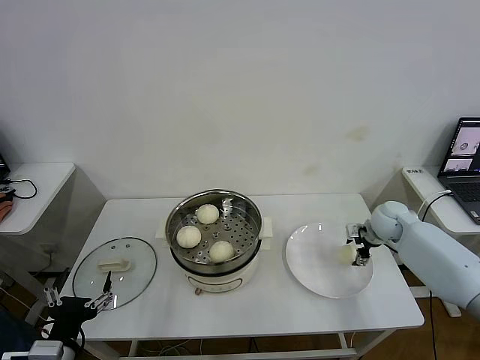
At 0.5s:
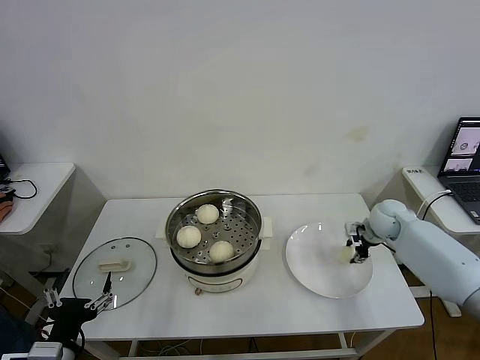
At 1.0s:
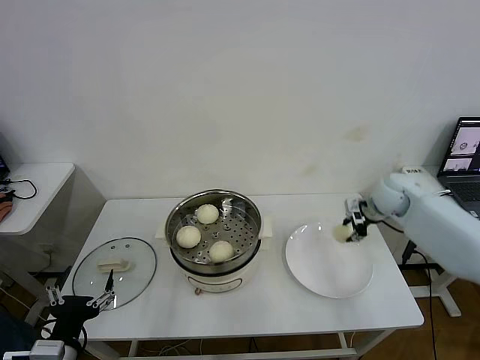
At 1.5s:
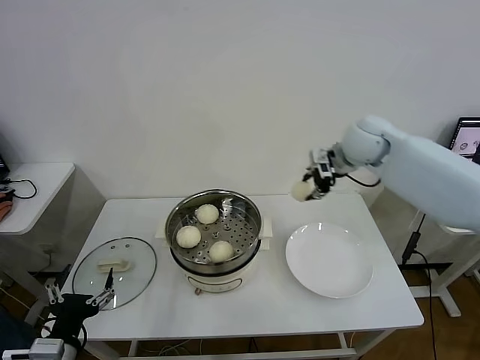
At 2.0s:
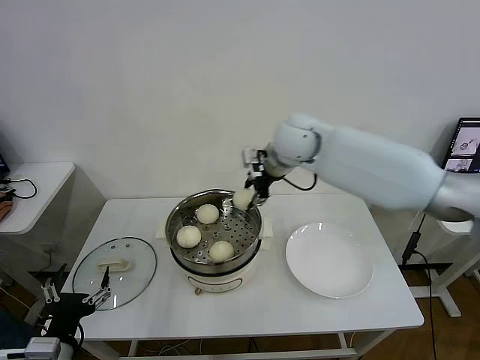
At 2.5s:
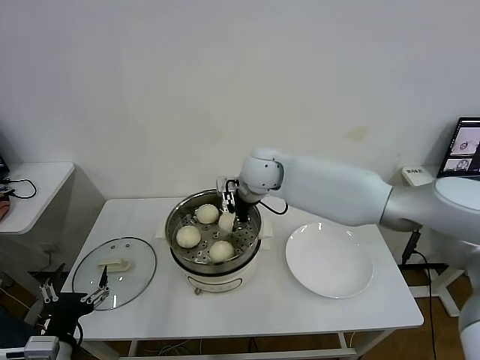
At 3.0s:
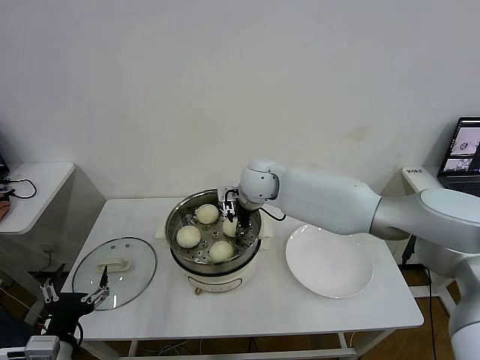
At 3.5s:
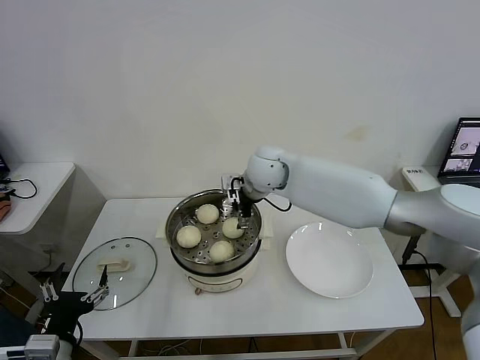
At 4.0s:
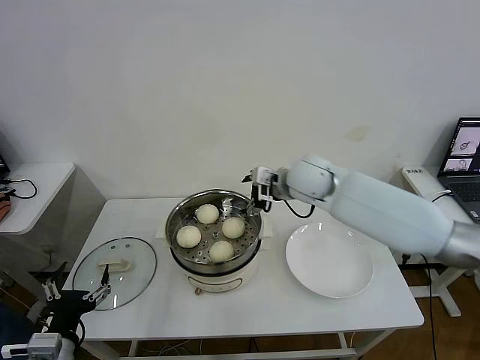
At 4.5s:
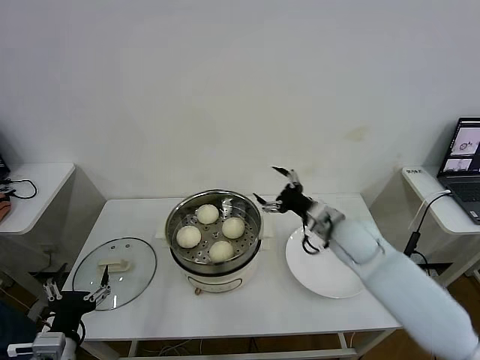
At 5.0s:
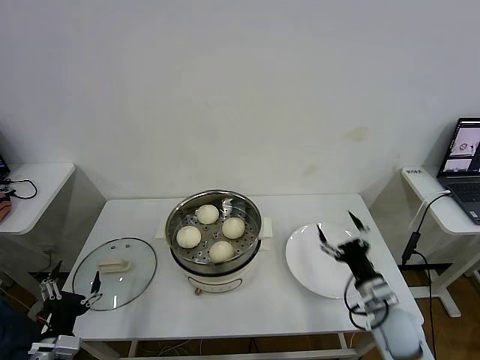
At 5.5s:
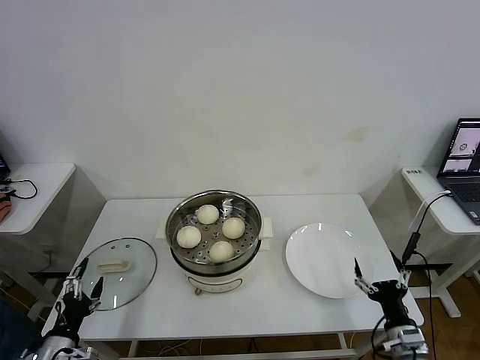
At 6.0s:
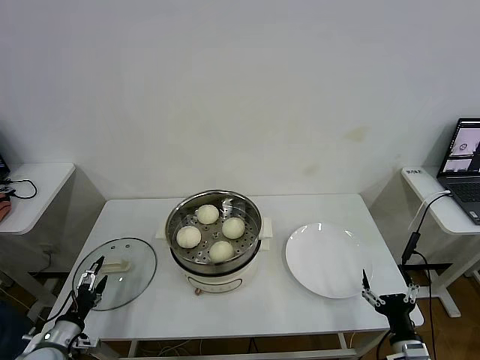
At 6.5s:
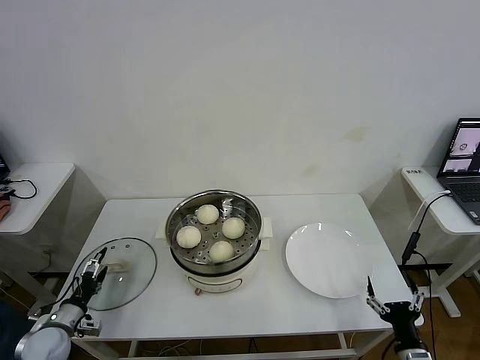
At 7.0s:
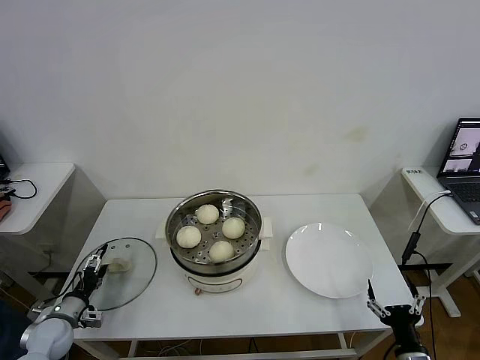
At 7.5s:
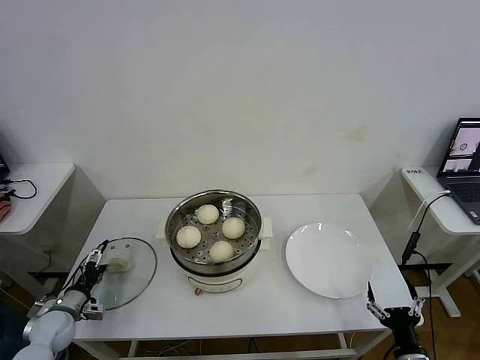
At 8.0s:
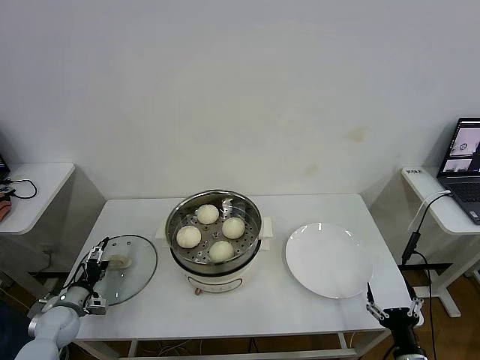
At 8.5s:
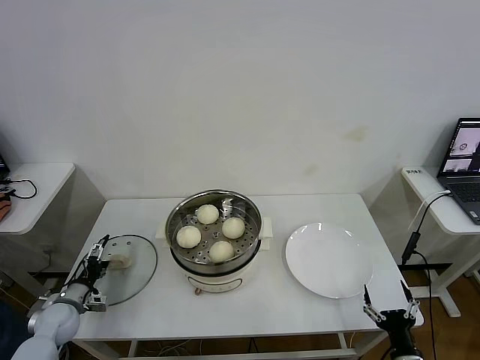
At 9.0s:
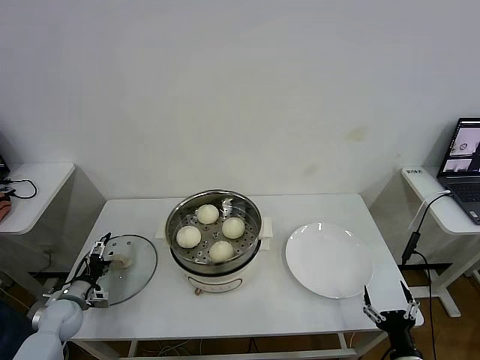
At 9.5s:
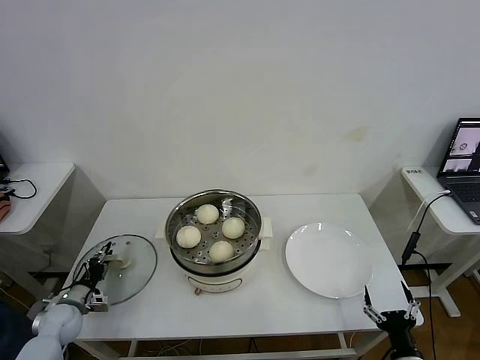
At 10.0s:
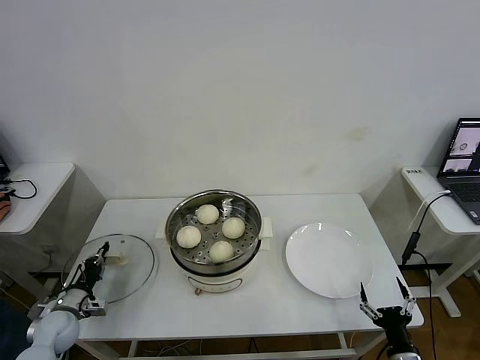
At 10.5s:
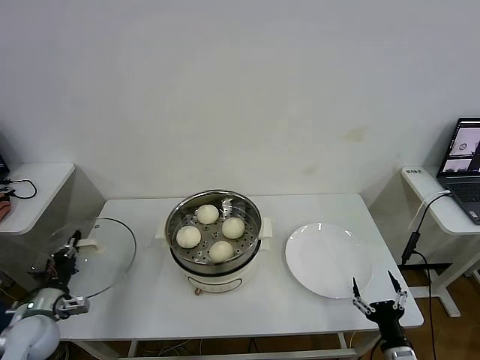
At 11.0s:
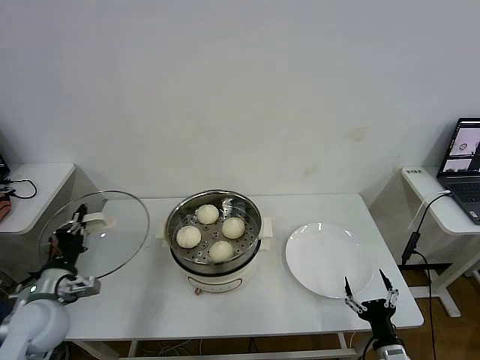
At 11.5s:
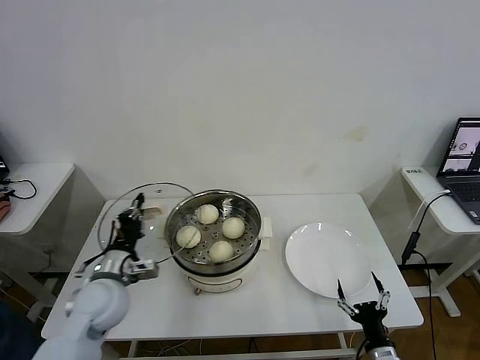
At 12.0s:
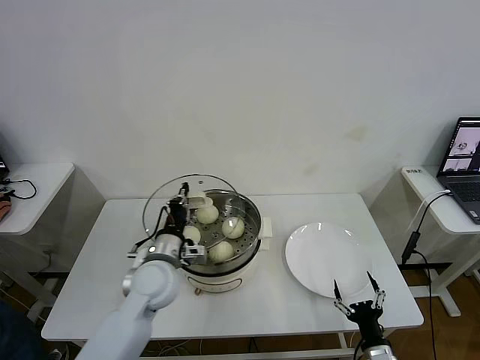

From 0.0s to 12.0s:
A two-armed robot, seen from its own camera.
Task of the whole recording: take steamed baozi put them in steamer then cover it.
Step, from 0.5s to 3.0s: Place the baozi on the steamer with right gripper.
Step, from 4.0s to 9.5s: Grasp the pot lid with left gripper.
From 0.0s to 2.0s: The right gripper is displaced to the left and upward by approximately 35 cm, and closes up.
From 2.0s to 4.0s: The right gripper heads downward, covering roughly 5 cm, and opens up.
From 4.0s to 6.0s: The right gripper moves backward, downward and to the right, about 50 cm. Meanwhile the left gripper goes approximately 20 cm downward, to the left and forward.
From 6.0s to 8.0s: The left gripper shifts roughly 10 cm forward.
From 8.0s to 10.0s: The left gripper closes.
From 10.0s to 12.0s: The left gripper moves to the right and upward, roughly 35 cm.

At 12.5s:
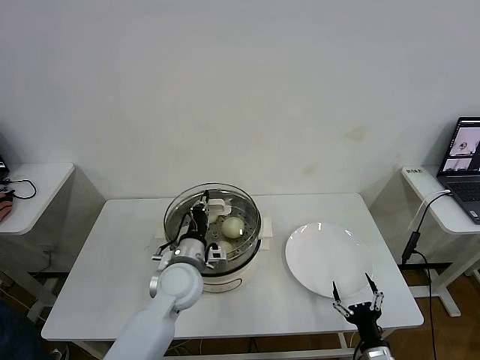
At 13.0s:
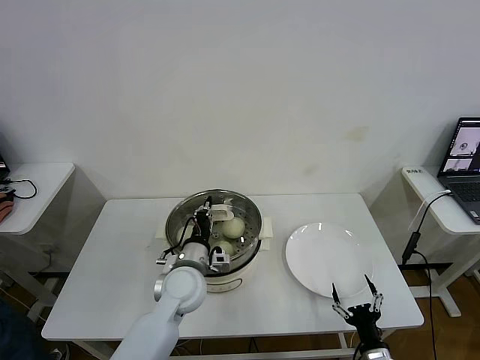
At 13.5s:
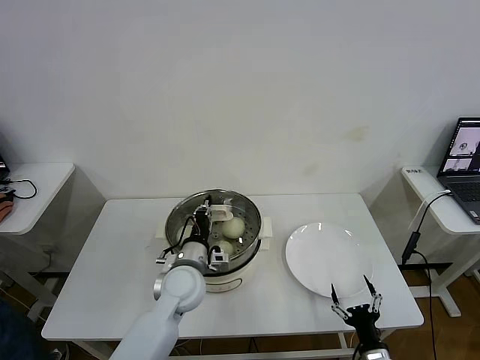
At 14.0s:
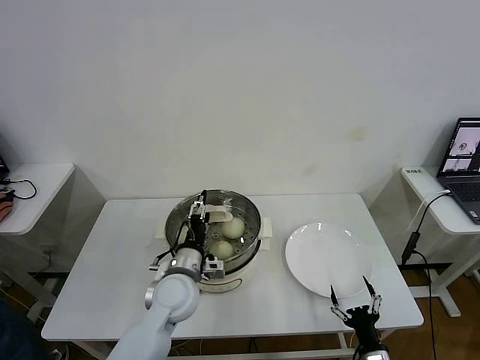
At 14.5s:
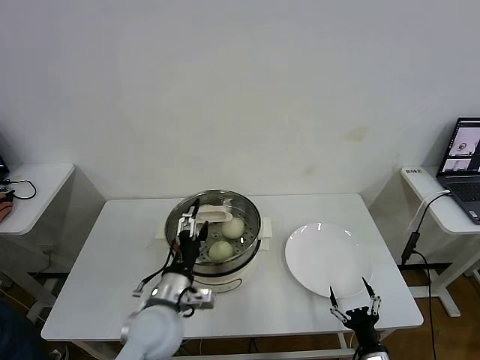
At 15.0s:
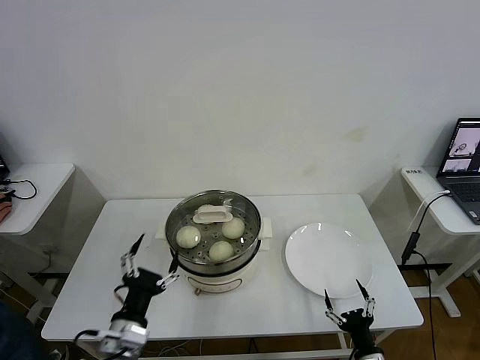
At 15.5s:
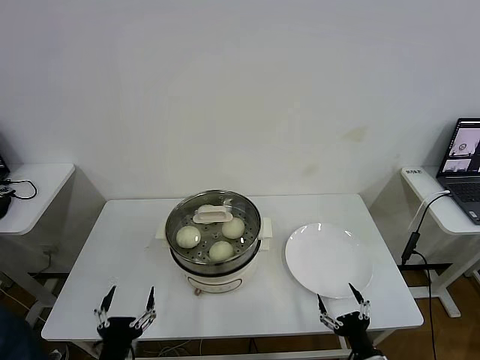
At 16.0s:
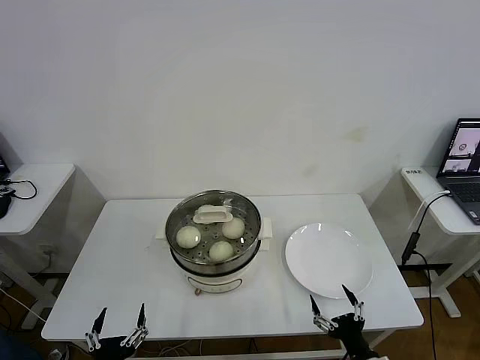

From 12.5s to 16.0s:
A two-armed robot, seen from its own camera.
Task of the whole recording: take steamed baozi put them in steamer then cover it.
From 12.5s to 14.5s: The left gripper is displaced backward by roughly 10 cm, and opens its fingers.
From 14.5s to 16.0s: The right gripper goes about 5 cm upward; the left gripper shifts approximately 20 cm backward and to the left.
